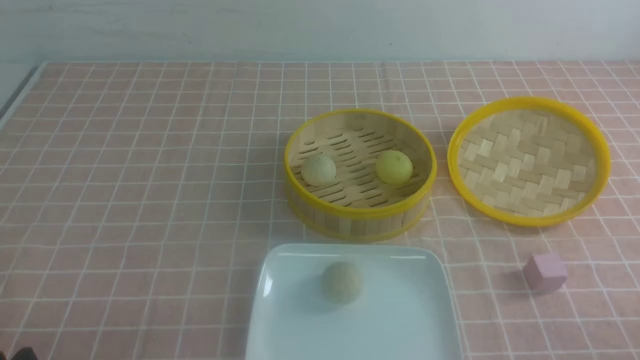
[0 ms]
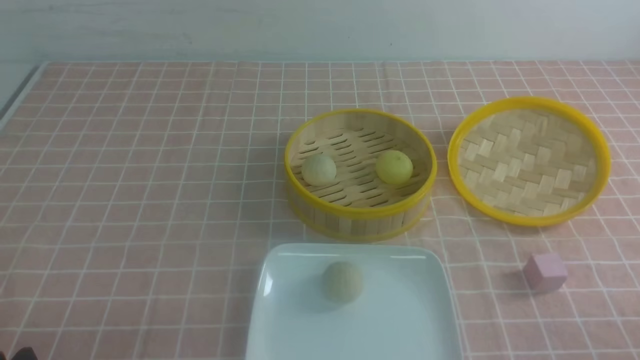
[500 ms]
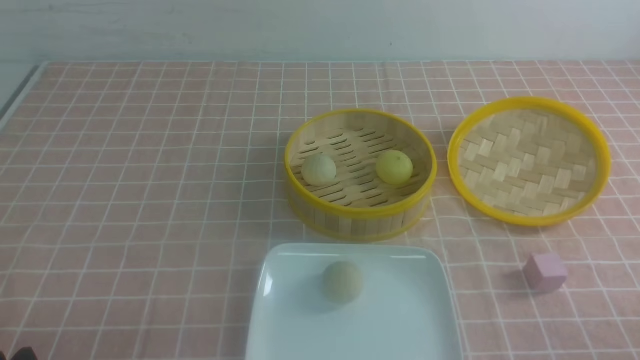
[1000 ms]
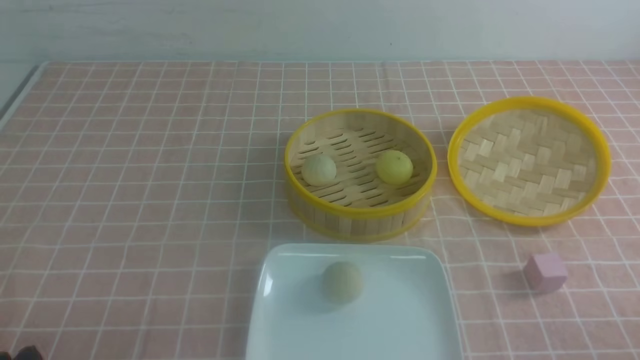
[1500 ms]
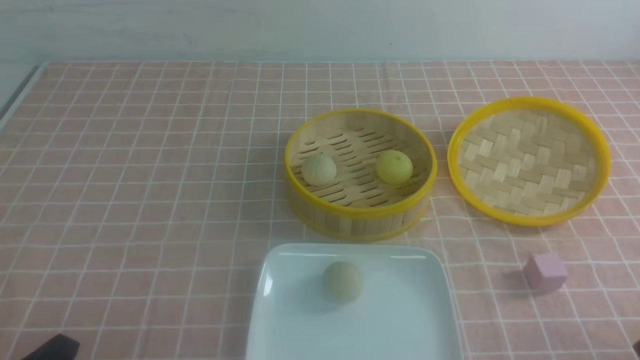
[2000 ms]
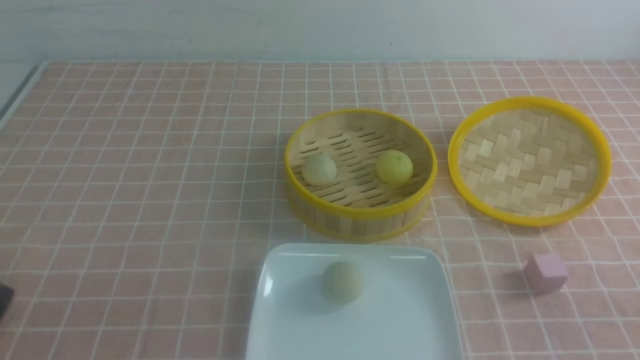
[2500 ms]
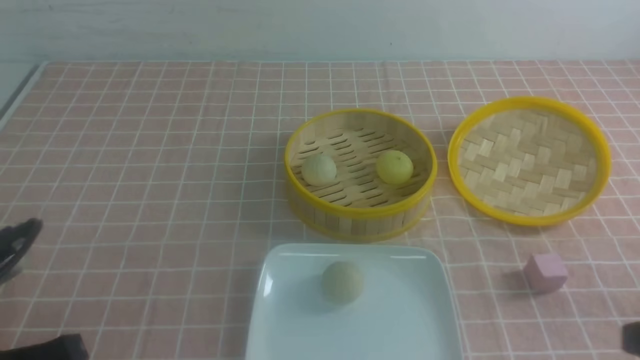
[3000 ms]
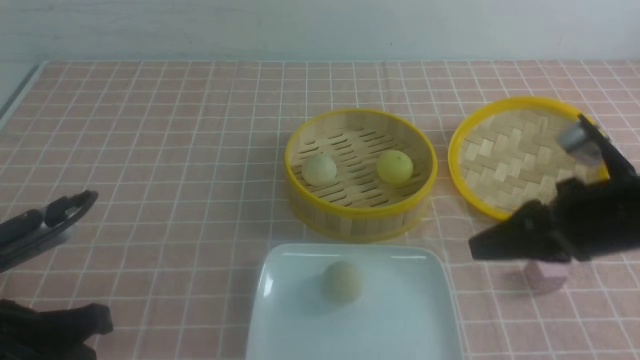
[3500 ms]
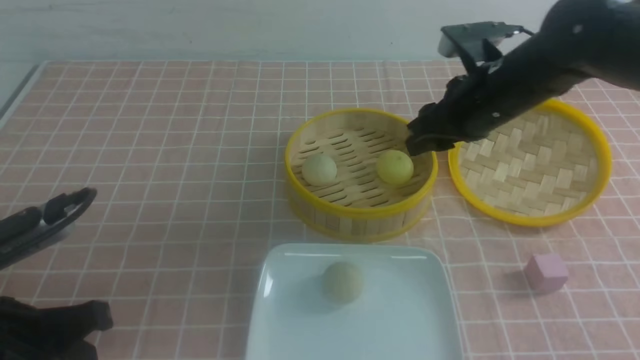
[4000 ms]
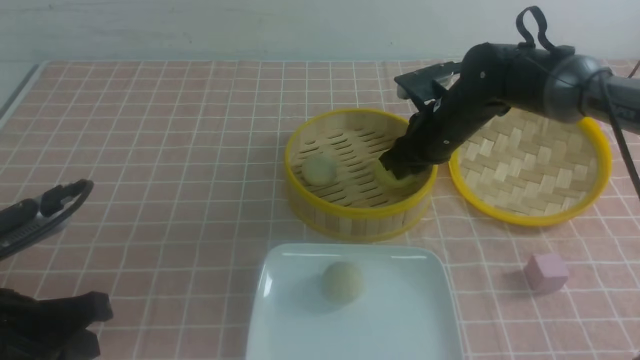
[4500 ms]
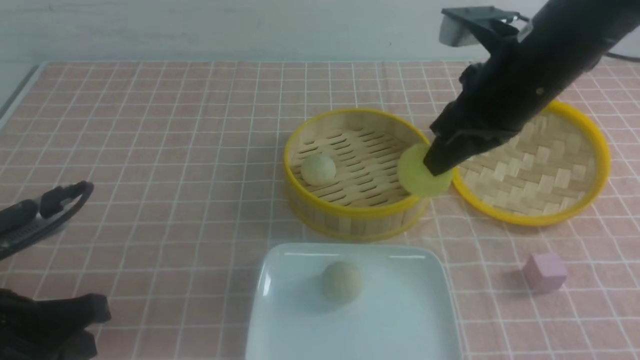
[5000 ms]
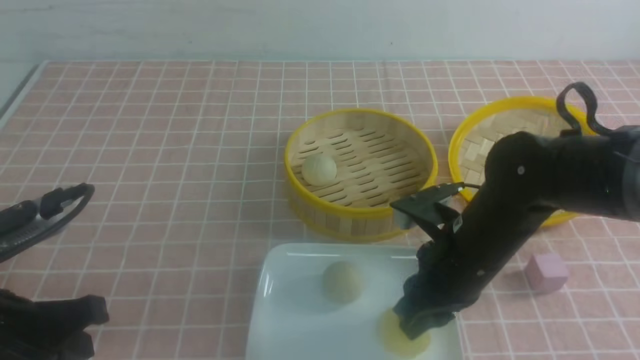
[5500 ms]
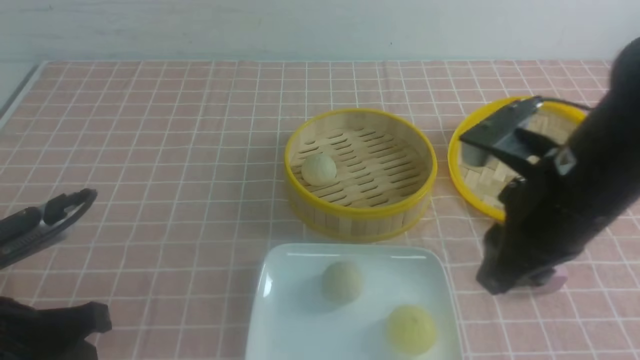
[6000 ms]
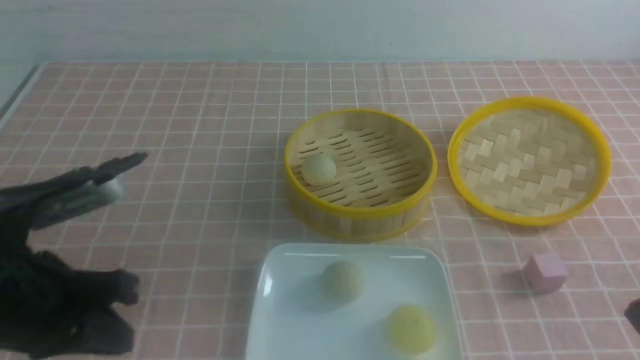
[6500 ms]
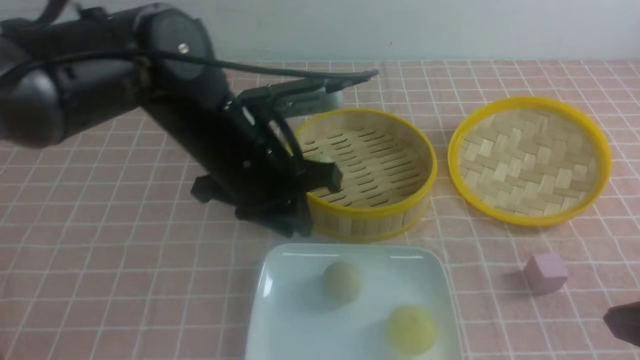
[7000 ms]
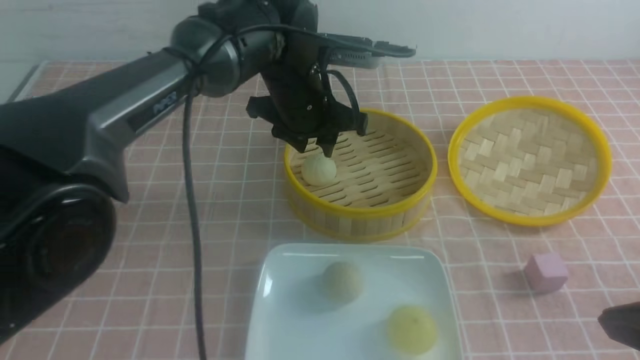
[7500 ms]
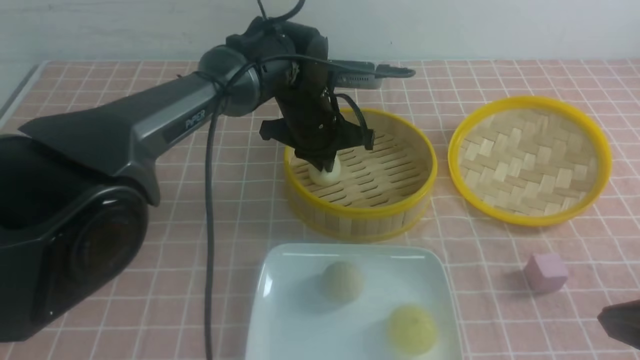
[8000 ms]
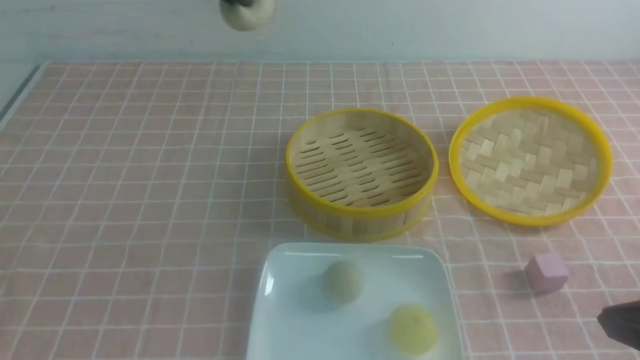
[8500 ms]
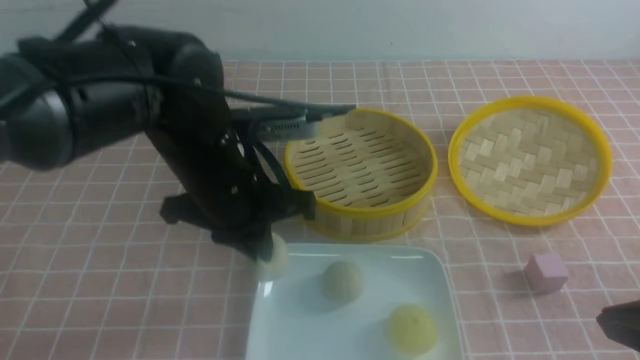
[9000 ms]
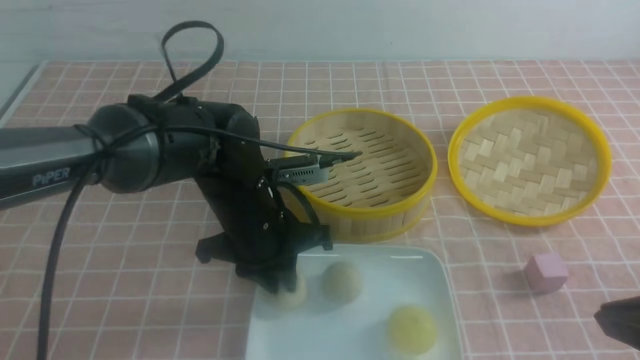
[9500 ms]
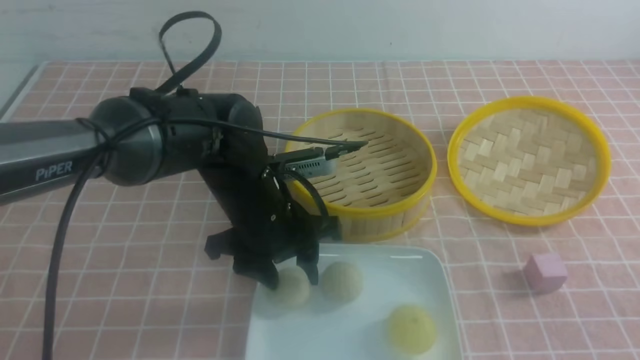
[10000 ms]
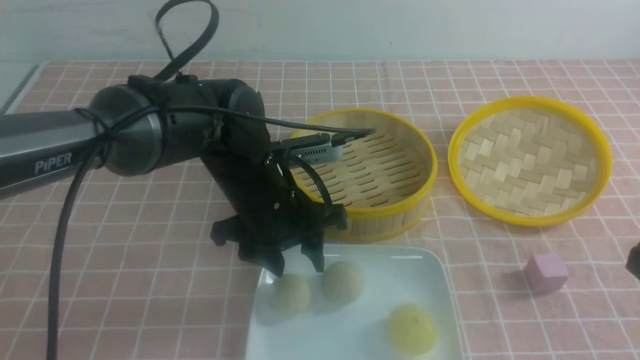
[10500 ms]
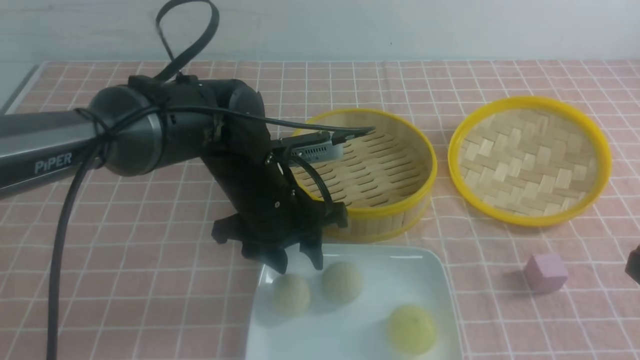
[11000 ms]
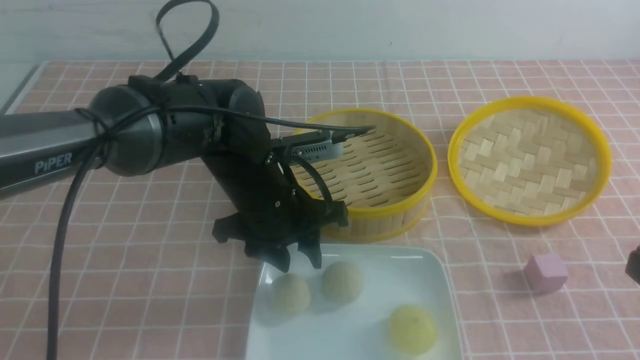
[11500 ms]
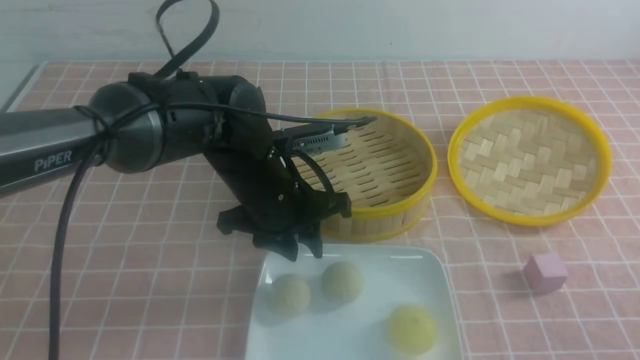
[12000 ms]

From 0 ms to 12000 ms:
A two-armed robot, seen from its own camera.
Step, from 0 ms to 4500 ms: use the right arm to grab the steamed stuffed bun that is closest to it.
Step, from 5000 ms to 5500 ms: use the right arm to put the steamed stuffed bun into the plate.
Step, from 6000 ms to 7500 ms: use the left arm to grab the steamed stuffed bun that is closest to it.
Step, from 8500 ms to 9500 ms: use the left arm to put the steamed stuffed bun into the plate.
From 2000 ms to 4000 ms: The left gripper travels forward and upward by about 10 cm, and closes. Meanwhile the right gripper shifts some 35 cm forward and to the left, and closes, then reopens.
From 4000 ms to 6000 ms: The right gripper shifts some 15 cm backward, and closes, then opens again.
From 6000 ms to 8000 ms: The left gripper moves forward and to the right, some 35 cm, and opens and closes again; the right gripper travels backward and to the right by some 15 cm, and closes its fingers.
From 8000 ms to 10000 ms: The left gripper heads backward, covering approximately 10 cm, goes upward and returns, approximately 15 cm each way, and opens. Meanwhile the right gripper shifts by approximately 5 cm.
From 10000 ms to 12000 ms: The left gripper closes up. The right gripper goes approximately 10 cm downward.

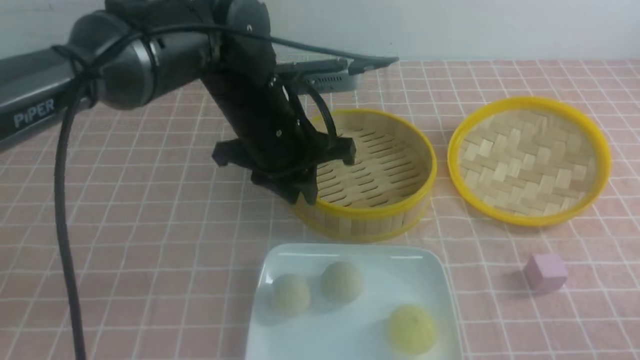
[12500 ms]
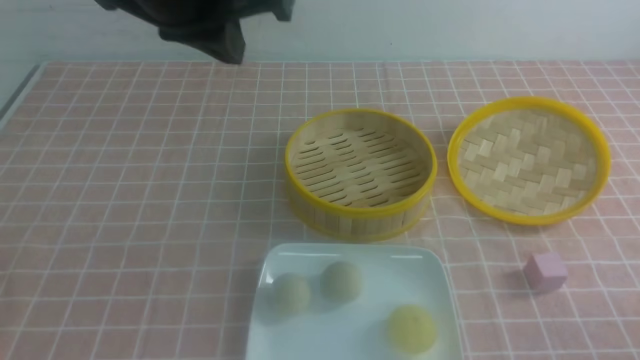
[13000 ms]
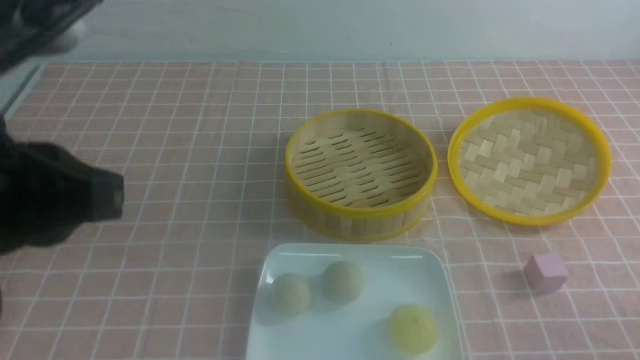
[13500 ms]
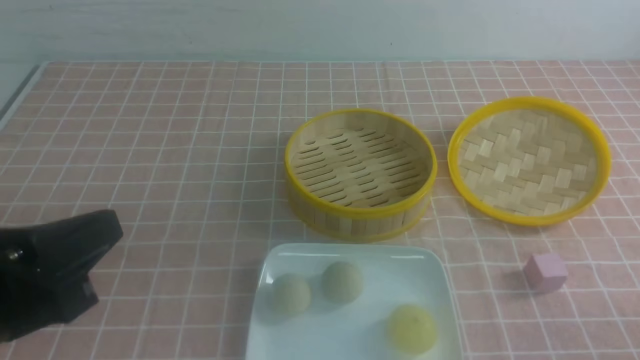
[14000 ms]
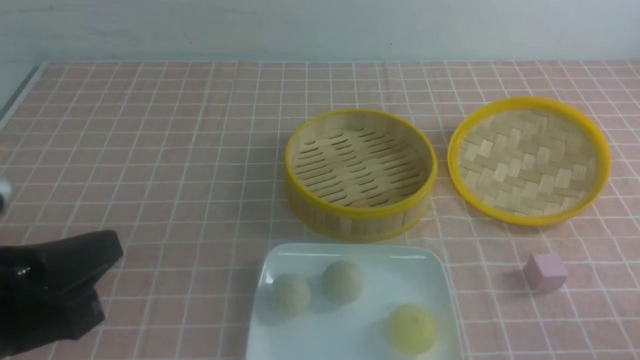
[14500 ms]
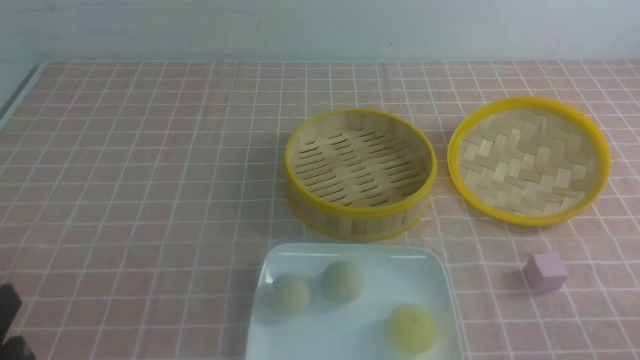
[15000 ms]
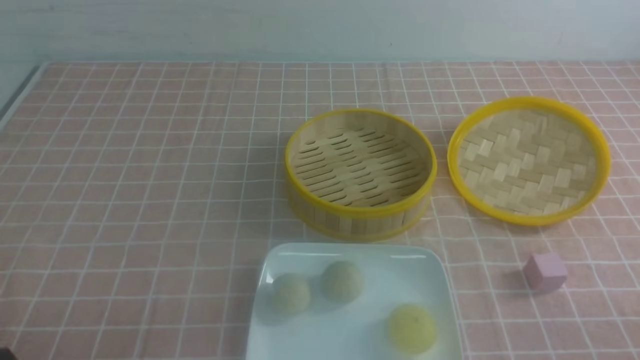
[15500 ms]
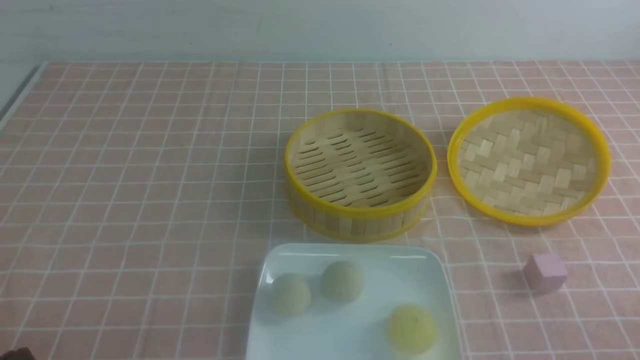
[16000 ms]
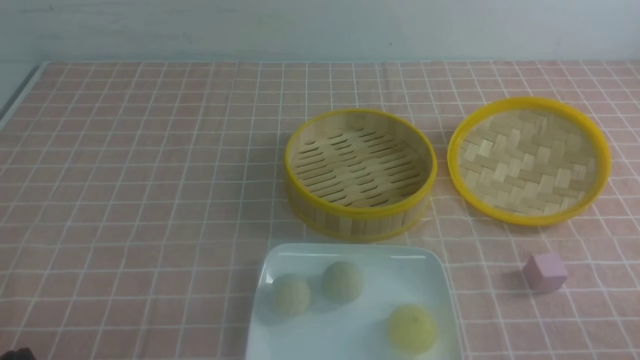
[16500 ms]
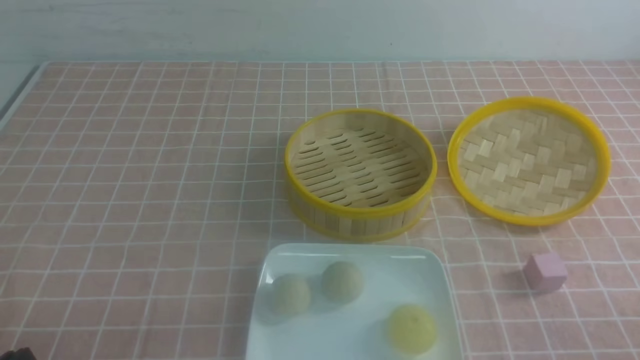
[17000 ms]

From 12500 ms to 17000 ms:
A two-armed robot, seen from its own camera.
From 12500 ms to 14500 ms: The left gripper moves backward and to the left, approximately 30 cm.
From 14500 ms to 17000 ms: The left gripper goes approximately 15 cm downward.
